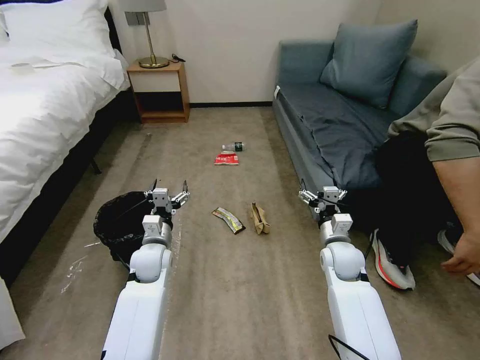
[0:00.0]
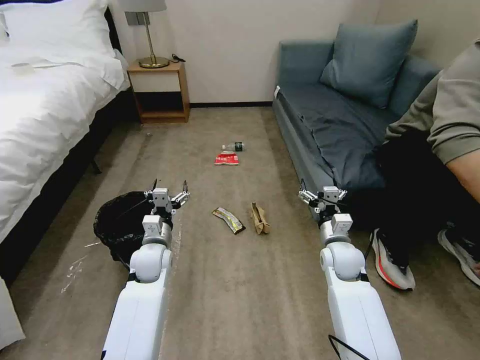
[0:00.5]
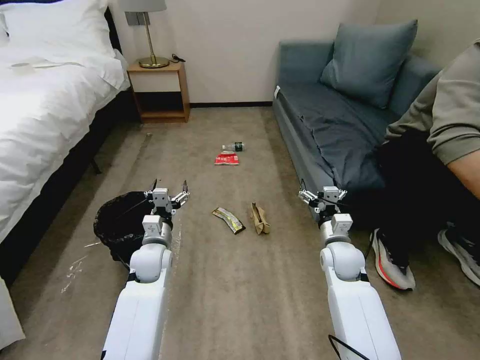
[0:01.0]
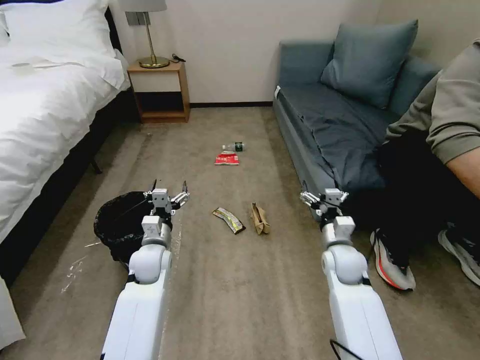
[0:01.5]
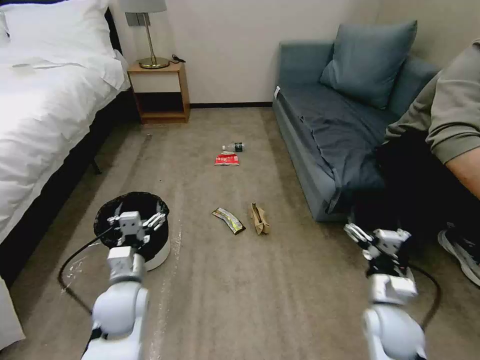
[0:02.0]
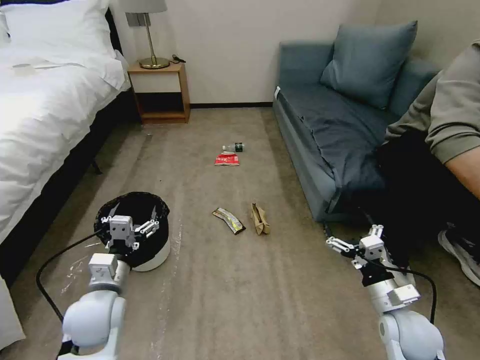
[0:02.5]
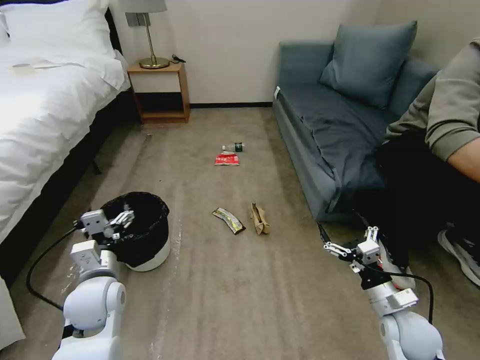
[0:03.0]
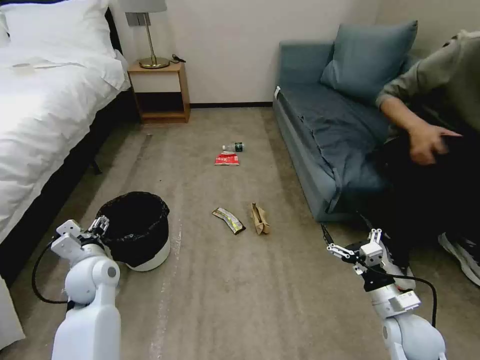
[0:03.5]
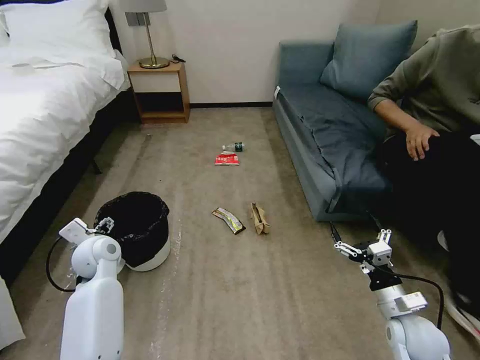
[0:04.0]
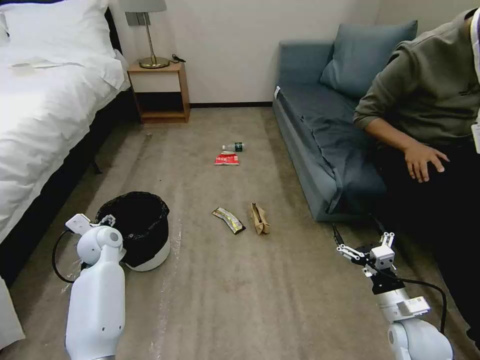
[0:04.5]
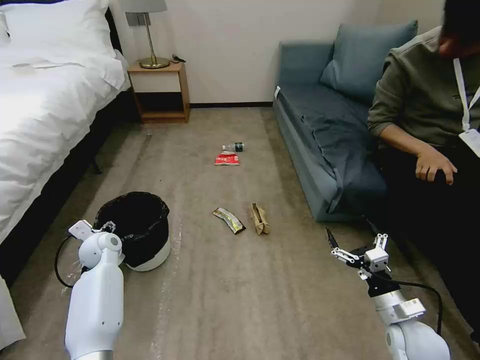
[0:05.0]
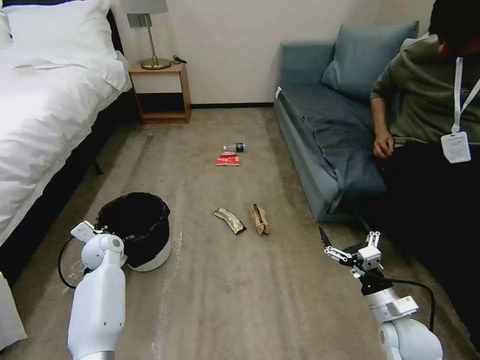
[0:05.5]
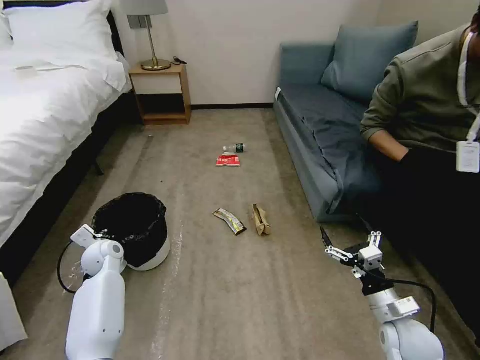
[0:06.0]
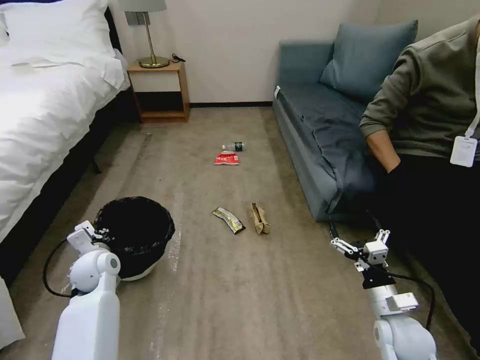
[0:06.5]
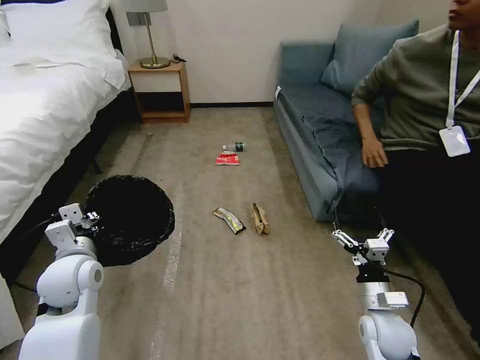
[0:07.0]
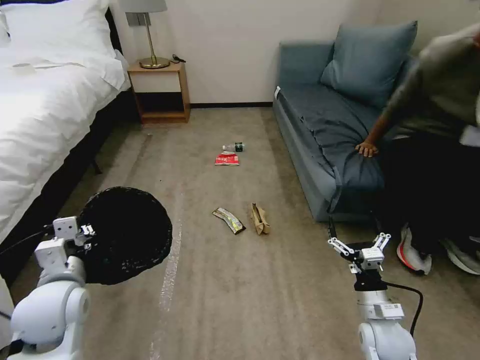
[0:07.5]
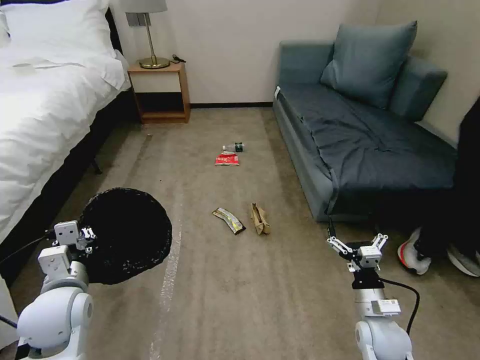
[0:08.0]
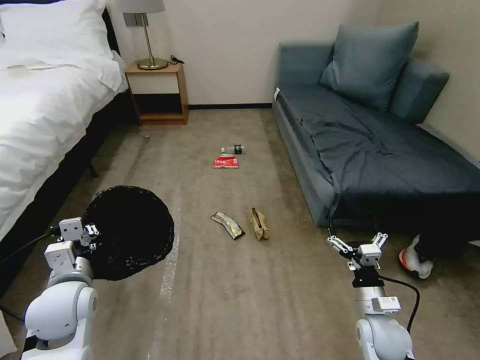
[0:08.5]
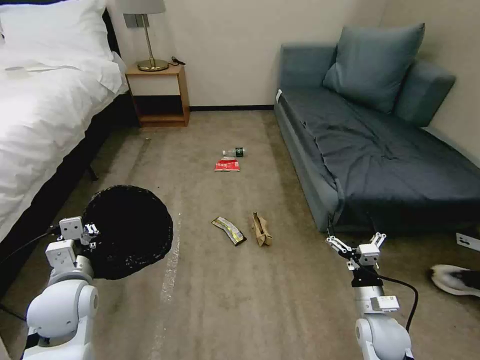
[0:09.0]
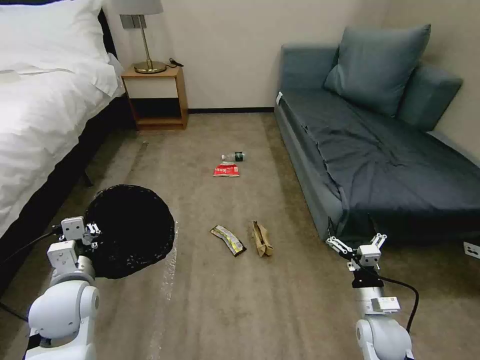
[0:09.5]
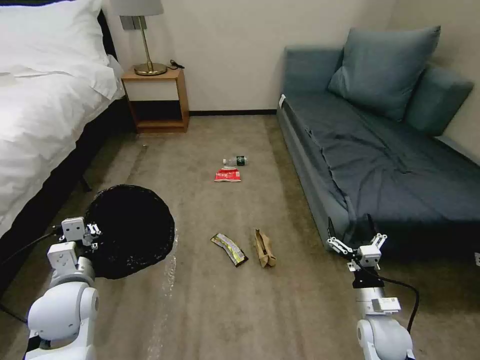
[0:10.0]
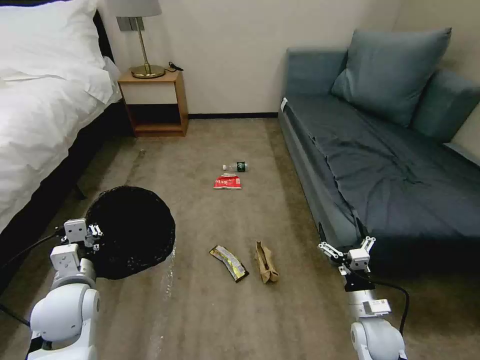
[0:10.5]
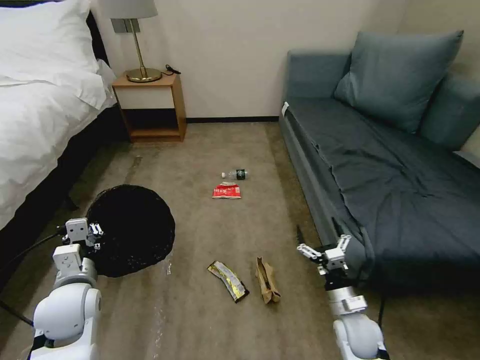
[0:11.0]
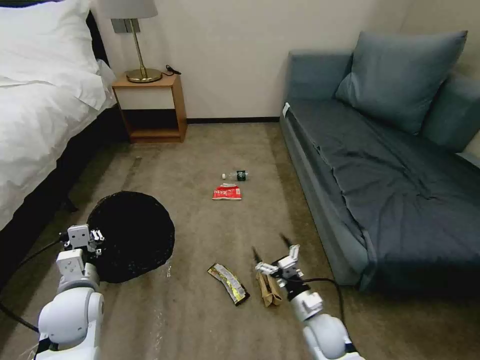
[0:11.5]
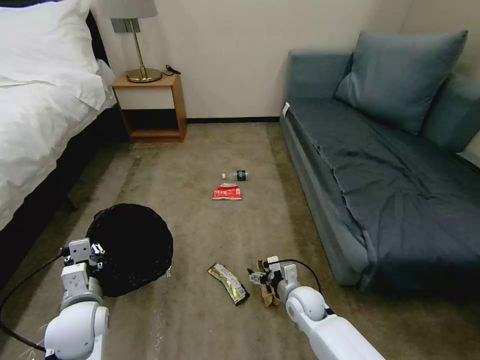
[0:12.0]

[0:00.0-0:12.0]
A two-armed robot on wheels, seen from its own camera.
Task of the whole recording: Pick up the trash bin, then pick up the garbage on the floor and place it into the trash bin.
0:02.0 to 0:04.0: The right gripper goes about 5 cm to the right. Meanwhile the left gripper travels forward and to the left by roughly 15 cm.
0:04.0 to 0:06.0: The left gripper is displaced downward by some 10 cm, and closes its fingers.
0:06.0 to 0:08.0: The right gripper ends up approximately 5 cm from where it was. The left gripper moves backward and upward, about 20 cm.
0:10.0 to 0:12.0: The left gripper shifts by some 5 cm, while the right gripper is displaced to the left, forward and downward by some 15 cm.

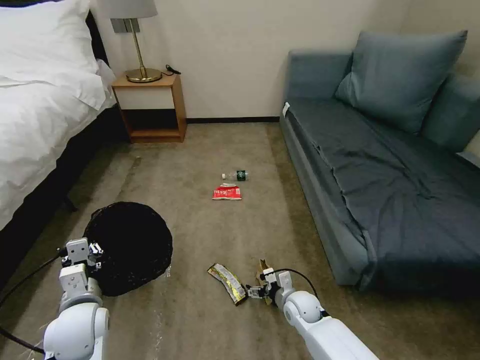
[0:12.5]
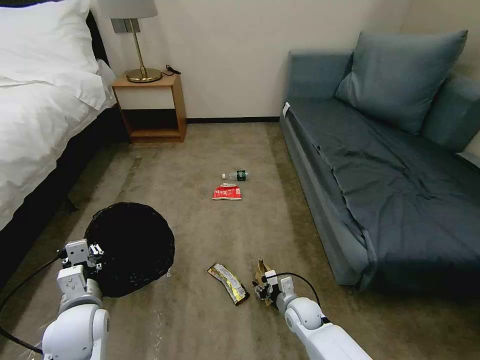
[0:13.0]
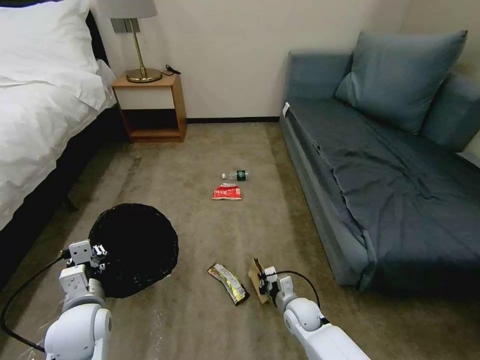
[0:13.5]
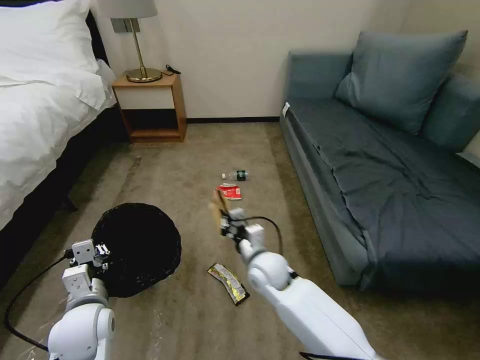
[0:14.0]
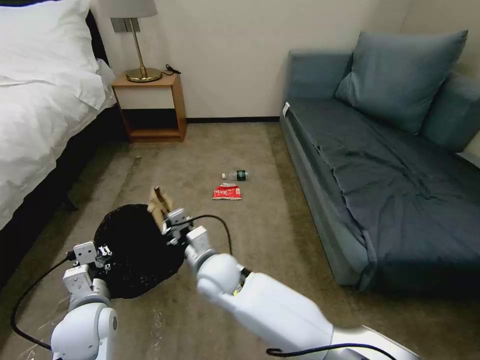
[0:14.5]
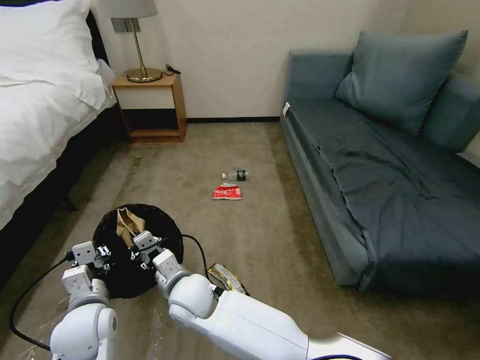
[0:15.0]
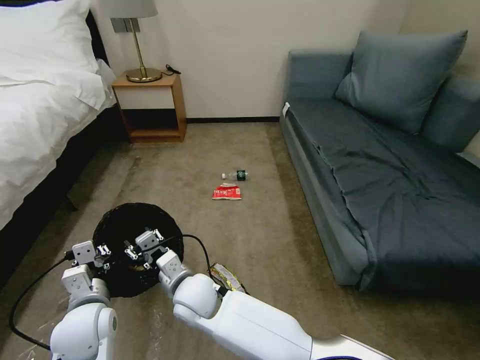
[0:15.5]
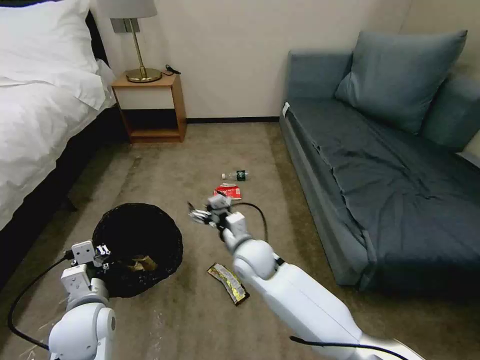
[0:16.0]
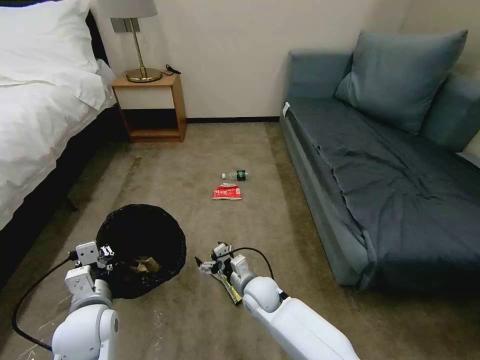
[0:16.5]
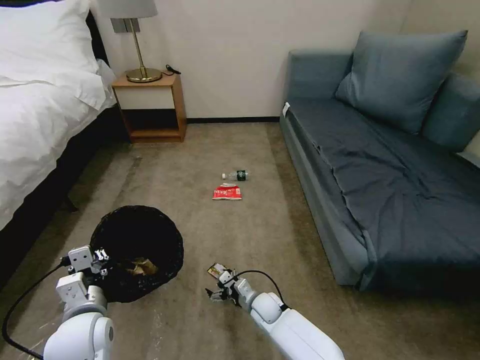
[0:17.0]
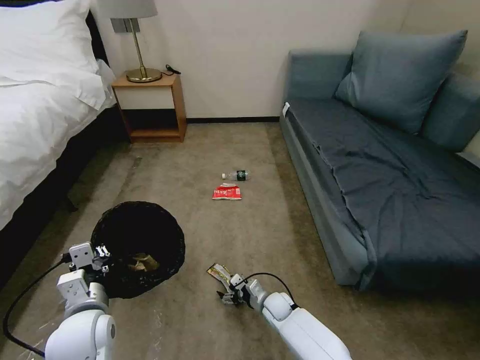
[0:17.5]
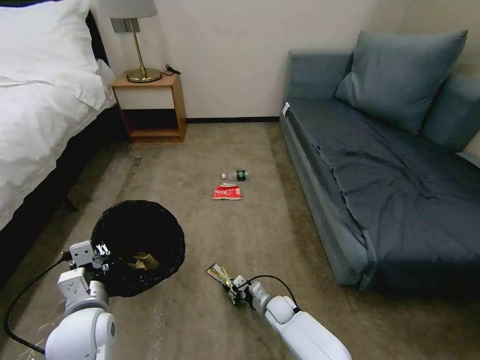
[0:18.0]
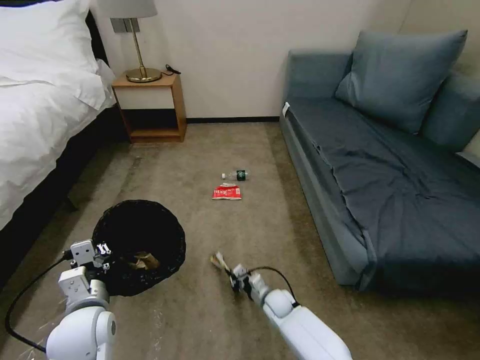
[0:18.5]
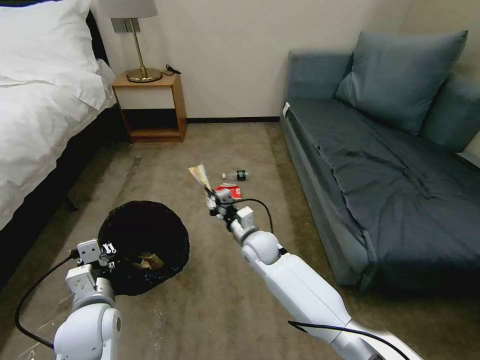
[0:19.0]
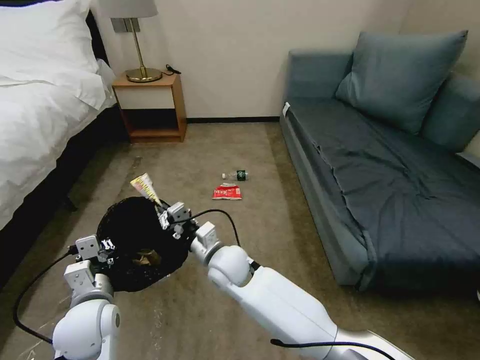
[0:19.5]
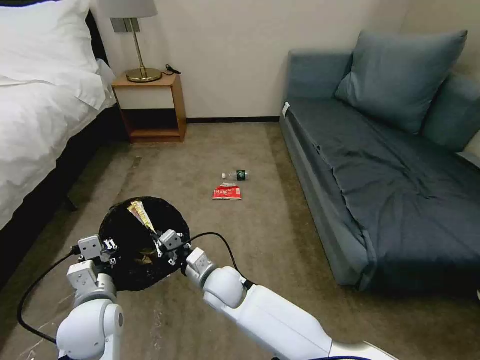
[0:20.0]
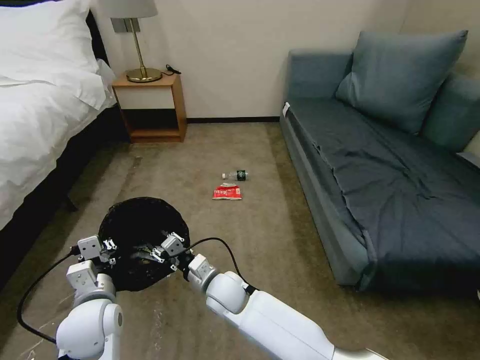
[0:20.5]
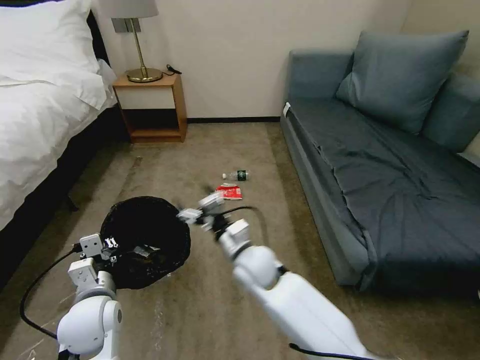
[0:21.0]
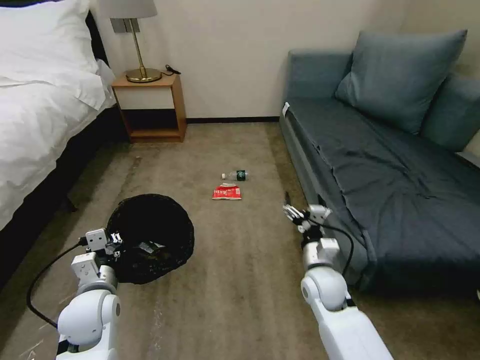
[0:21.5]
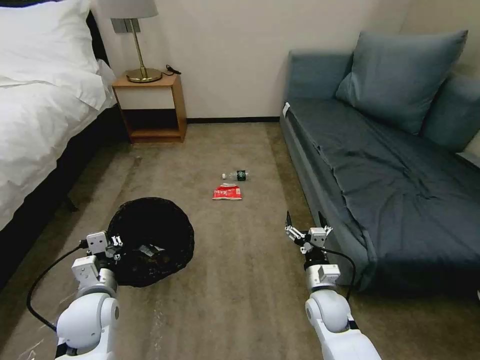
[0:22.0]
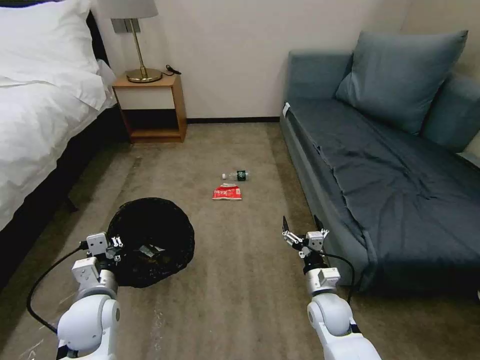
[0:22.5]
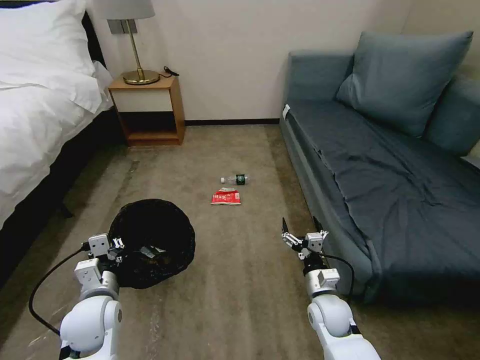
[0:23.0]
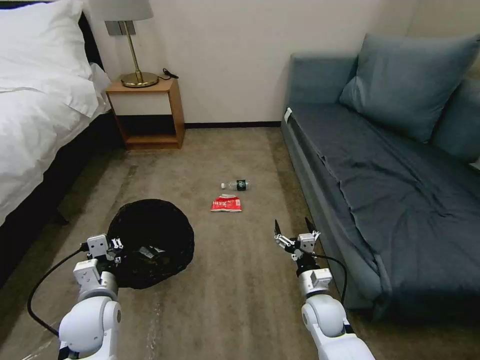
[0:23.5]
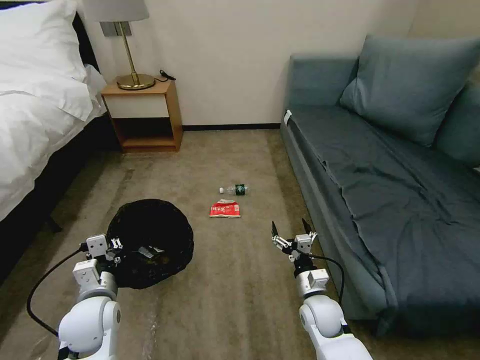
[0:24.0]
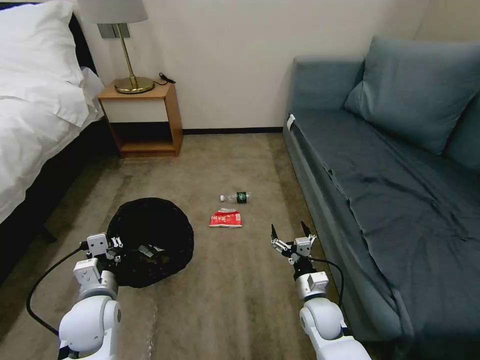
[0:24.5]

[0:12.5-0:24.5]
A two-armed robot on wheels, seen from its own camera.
Task of the whole recording: Pick up the trash bin, then pick up the garbage on the floor and place it into the trash bin.
0:12.5 to 0:14.5: The right gripper travels to the left and upward by some 30 cm, and closes its fingers.
0:14.5 to 0:16.5: The right gripper heads downward and to the right, covering some 20 cm, and opens.
0:16.5 to 0:18.5: The right gripper heads downward and to the right, covering approximately 15 cm, and closes up.
0:18.5 to 0:20.5: The right gripper shifts roughly 25 cm upward and to the left, and opens its fingers.
0:20.5 to 0:22.5: The right gripper is displaced to the right by some 25 cm, and opens up.

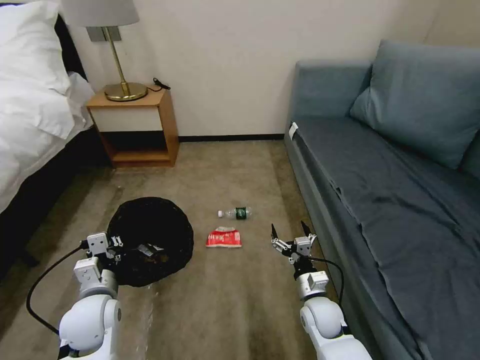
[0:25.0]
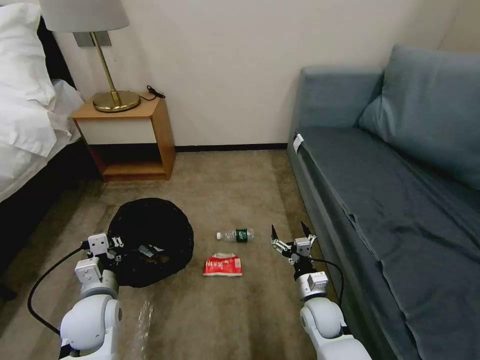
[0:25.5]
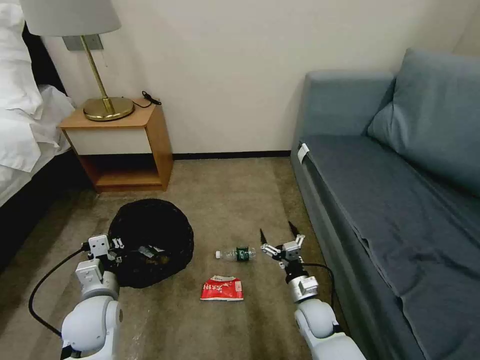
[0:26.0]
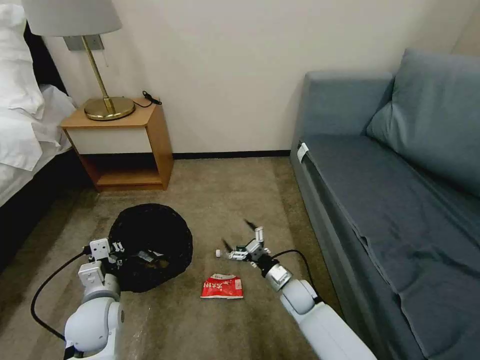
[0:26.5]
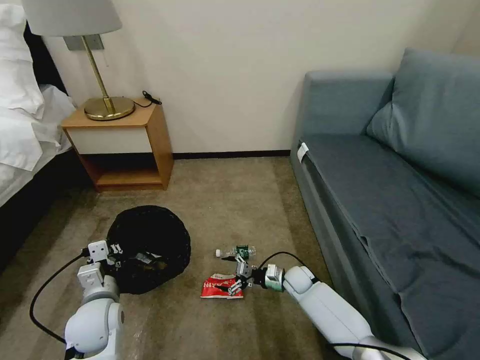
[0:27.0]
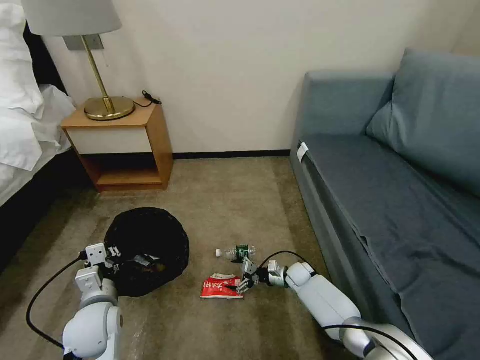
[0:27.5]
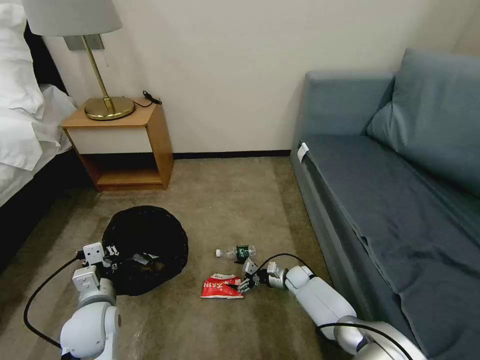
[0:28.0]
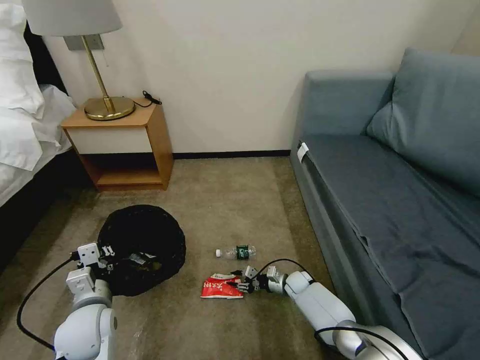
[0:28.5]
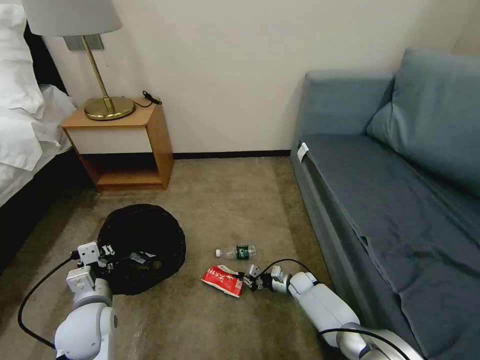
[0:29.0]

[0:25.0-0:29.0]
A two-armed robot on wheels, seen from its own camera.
Task of the whole recording: Pick up the trash bin, then pick up the garbage on the floor and place it into the trash bin.
0:25.0 to 0:27.0: The right gripper travels forward and downward by about 15 cm.
0:27.0 to 0:29.0: The right gripper is displaced downward by approximately 5 cm, and closes its fingers.
